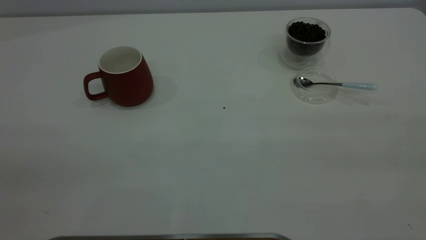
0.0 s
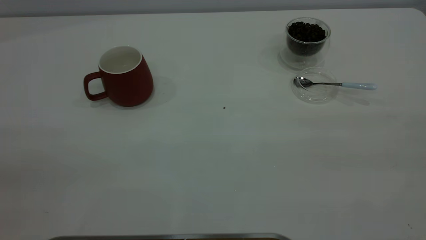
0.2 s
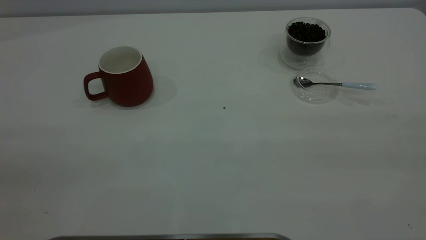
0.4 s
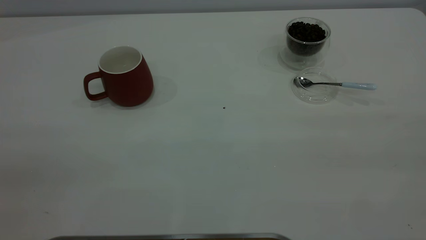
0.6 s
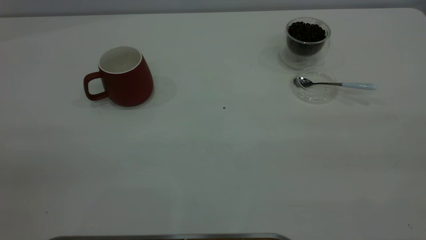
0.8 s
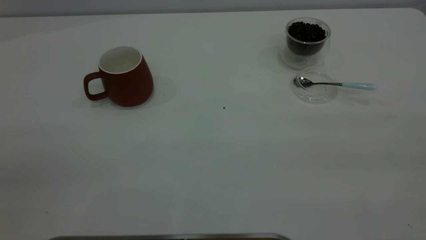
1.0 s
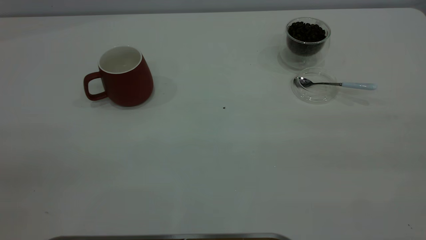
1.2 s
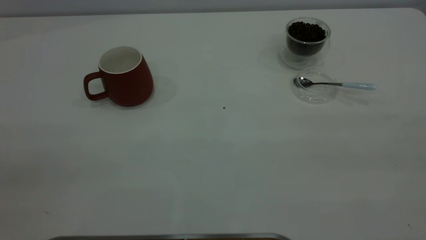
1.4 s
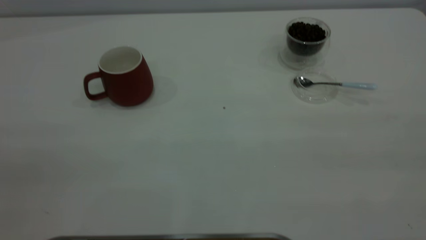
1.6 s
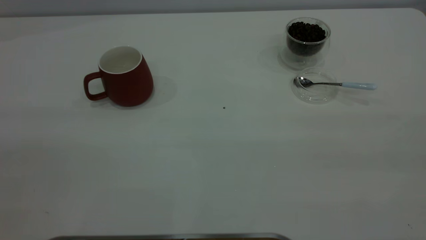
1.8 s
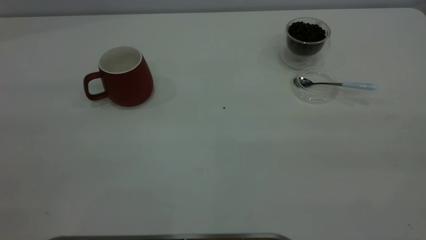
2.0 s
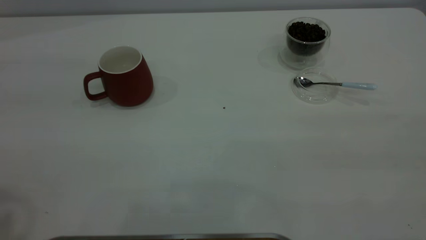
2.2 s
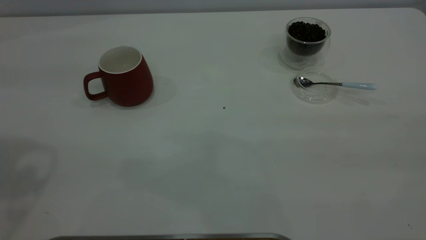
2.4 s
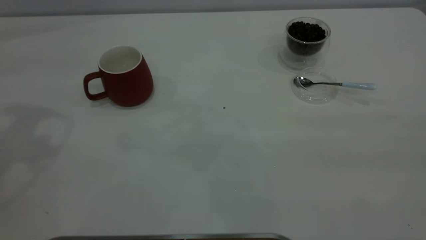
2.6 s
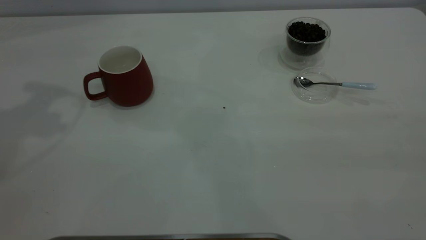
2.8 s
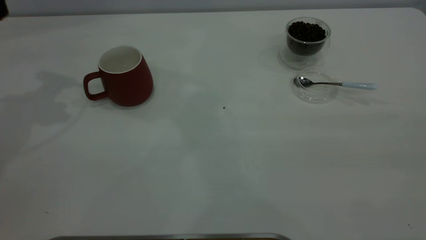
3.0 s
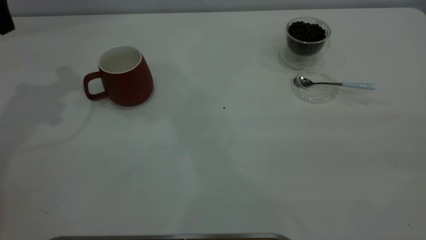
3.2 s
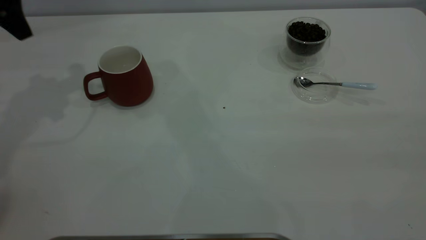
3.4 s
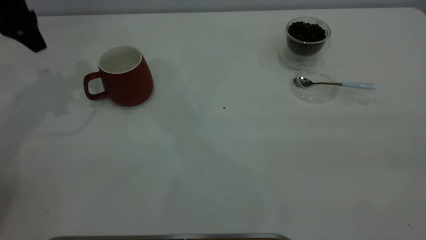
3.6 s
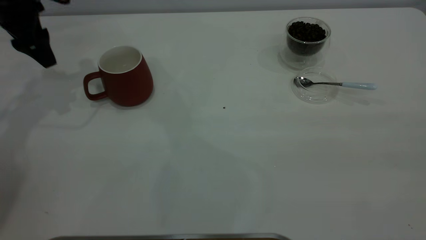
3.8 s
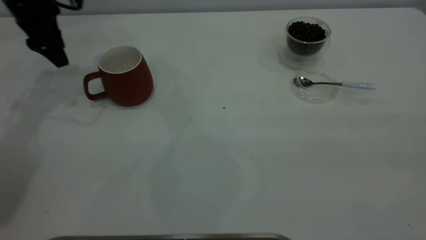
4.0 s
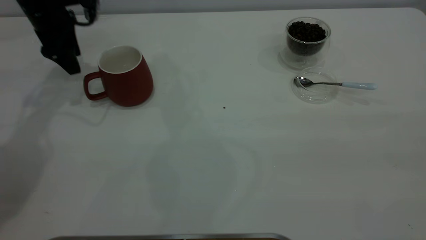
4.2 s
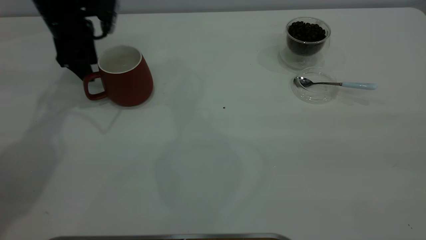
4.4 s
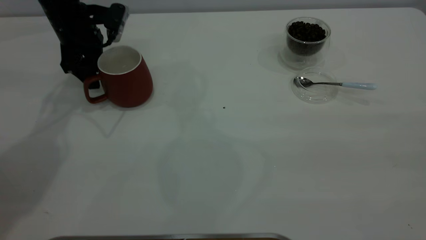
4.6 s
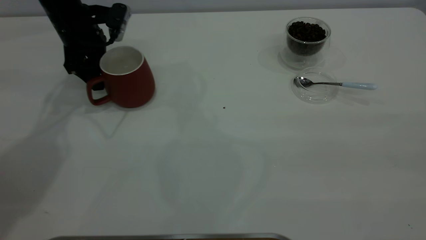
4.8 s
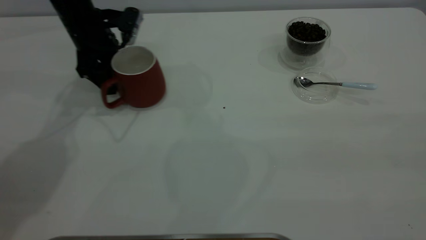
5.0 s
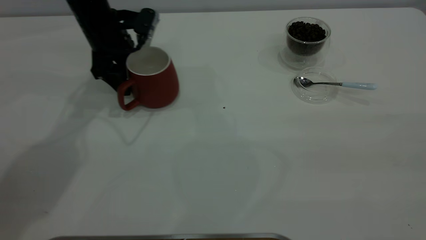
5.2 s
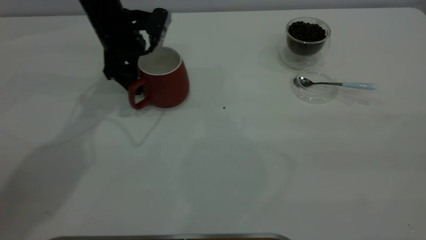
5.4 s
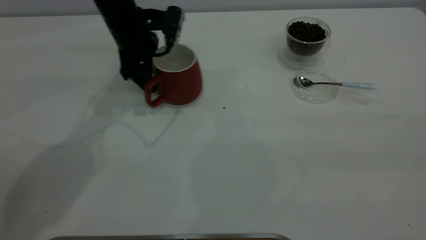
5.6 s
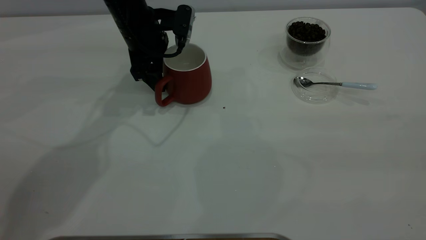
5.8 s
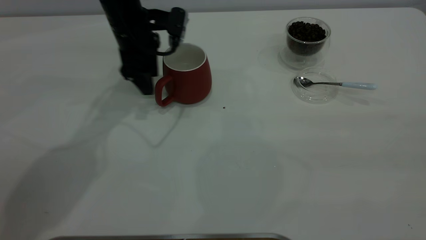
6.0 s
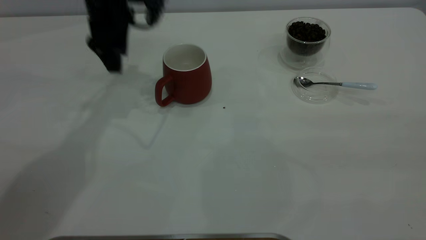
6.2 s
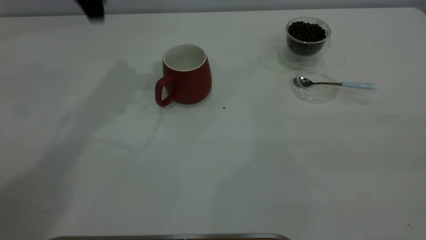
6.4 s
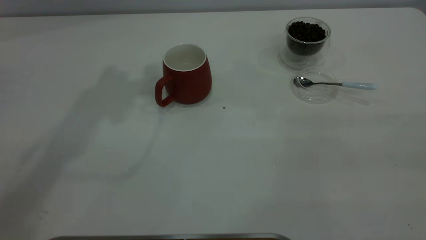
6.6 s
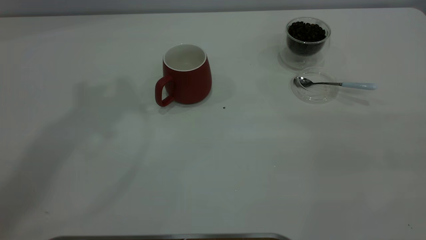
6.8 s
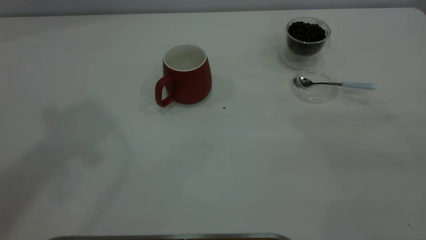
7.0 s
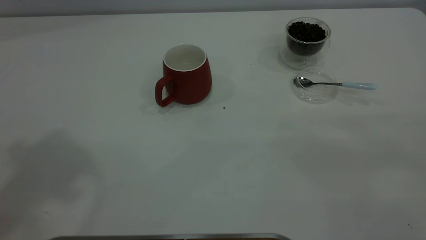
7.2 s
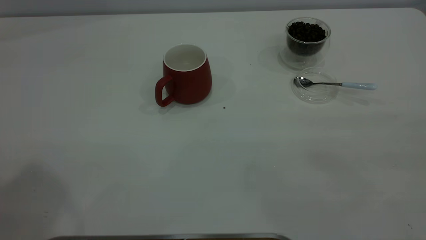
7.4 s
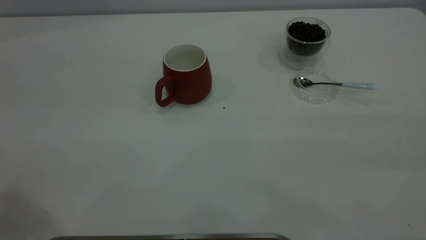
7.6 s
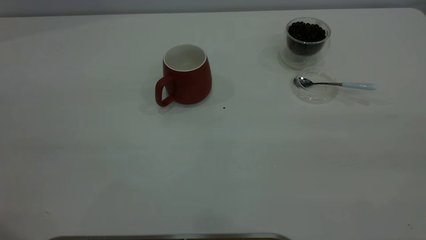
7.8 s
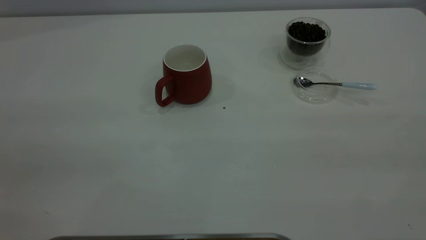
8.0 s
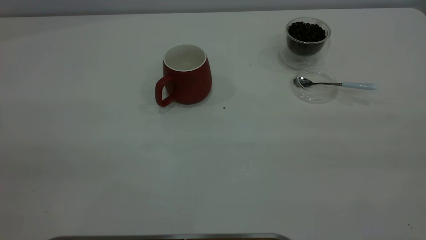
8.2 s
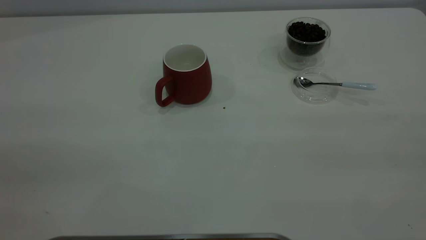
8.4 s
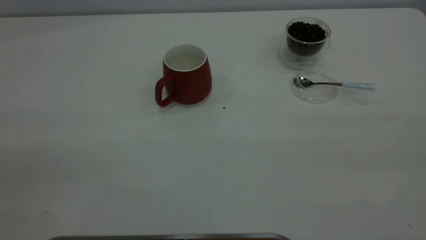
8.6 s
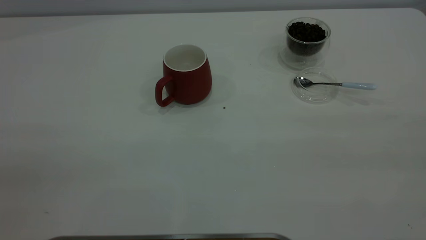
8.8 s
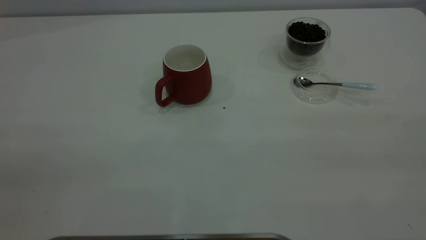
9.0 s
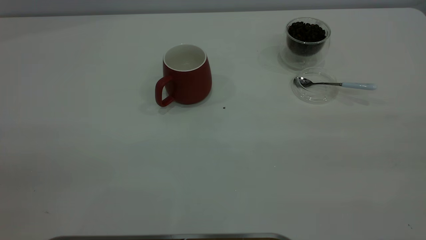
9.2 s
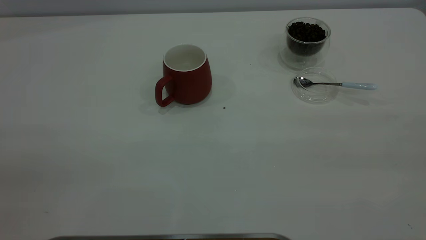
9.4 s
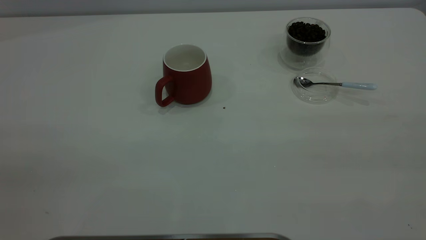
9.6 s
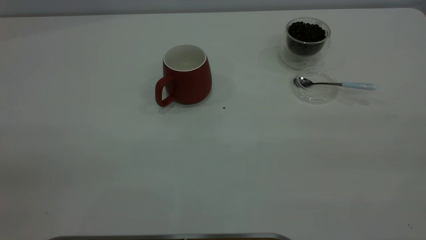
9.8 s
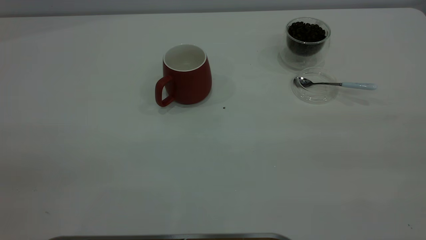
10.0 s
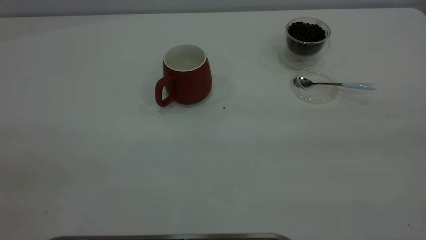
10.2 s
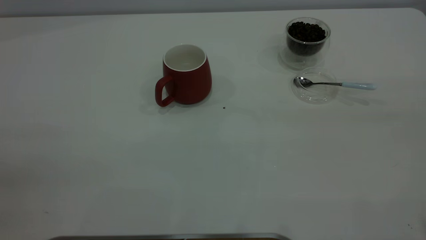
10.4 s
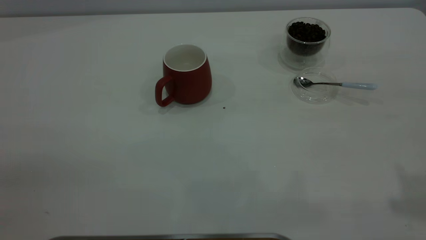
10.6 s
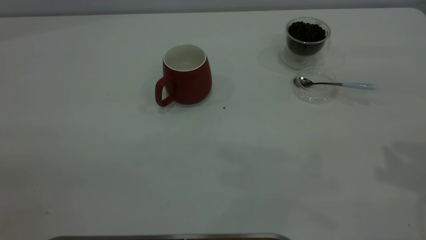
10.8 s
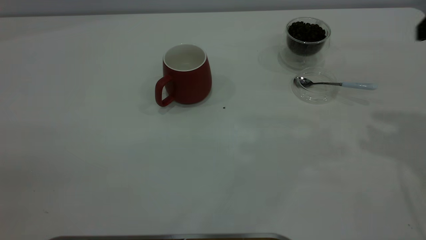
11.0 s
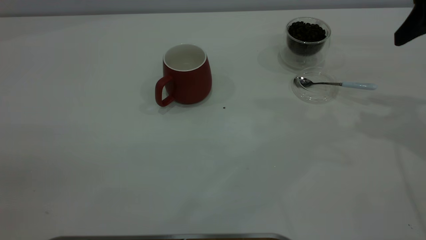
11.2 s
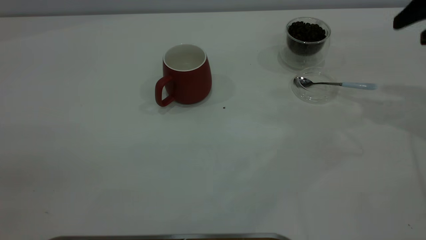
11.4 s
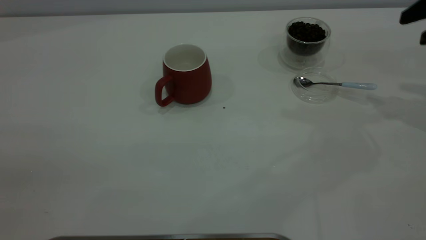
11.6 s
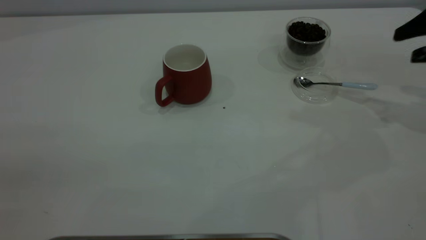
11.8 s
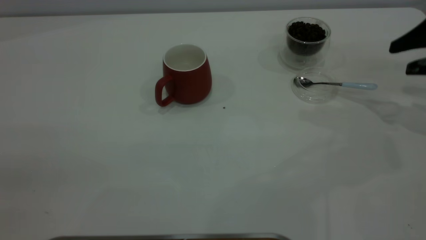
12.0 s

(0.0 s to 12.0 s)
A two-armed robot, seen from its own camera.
Task of the whole recording: the left gripper place the red cup in the center of the table, the right gripper take the blue spoon from the cup lid and scoop out the coffee beans from the coffee cup and put them into the red cup, the right gripper put the spoon back into the cup lid.
Step, 0.0 s - 6.0 s: Move the cup to the center of view.
3.0 s - 4.4 s: The left gripper travels downward, forward and to the right by roughly 20 cm.
4.4 s - 6.0 s: The left gripper shifts approximately 10 cm to the right.
6.0 s - 7.6 s: The left gripper shifts some 40 cm backward and upward.
10.4 s - 12.0 s: The right gripper goes roughly 35 cm forward and downward.

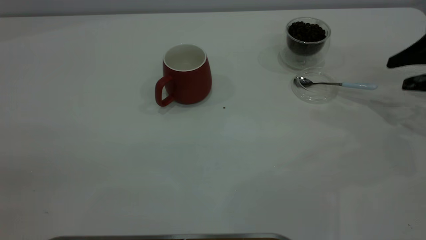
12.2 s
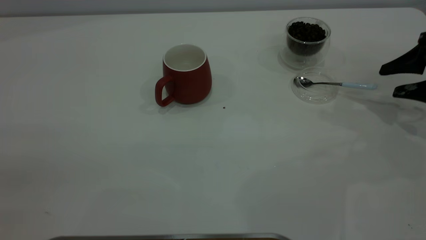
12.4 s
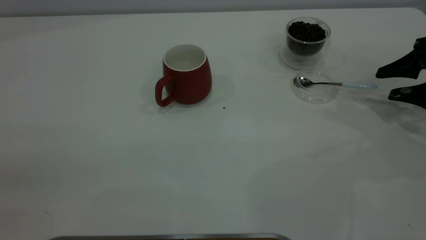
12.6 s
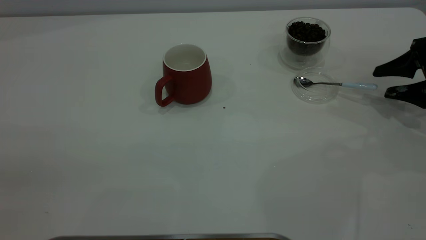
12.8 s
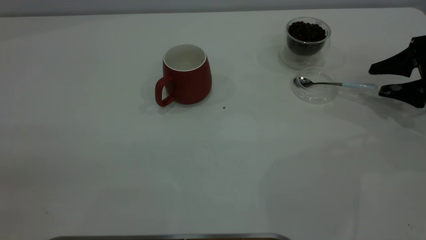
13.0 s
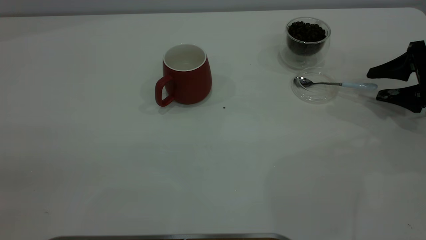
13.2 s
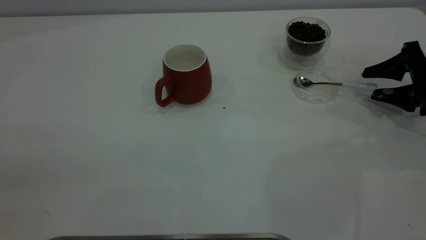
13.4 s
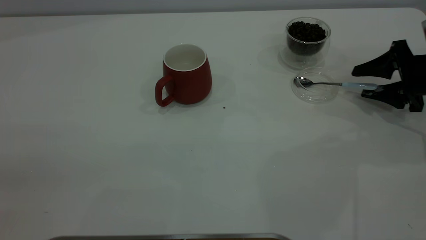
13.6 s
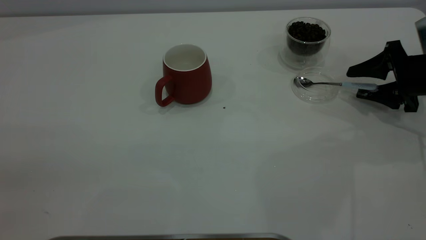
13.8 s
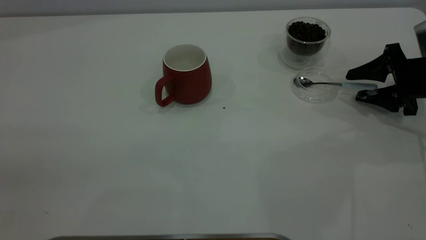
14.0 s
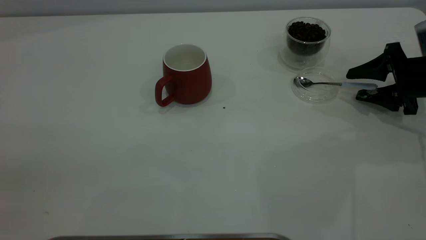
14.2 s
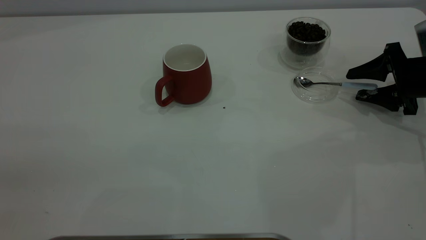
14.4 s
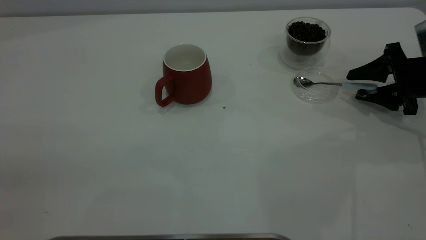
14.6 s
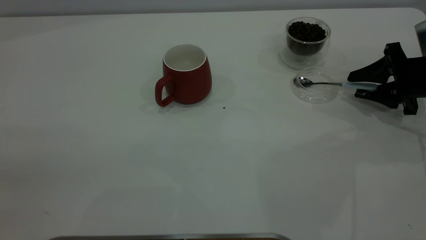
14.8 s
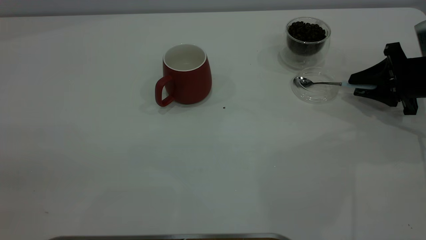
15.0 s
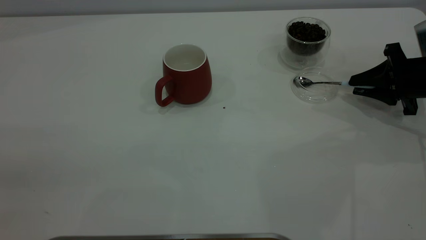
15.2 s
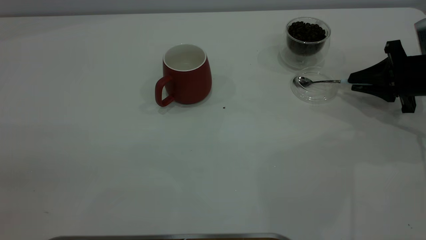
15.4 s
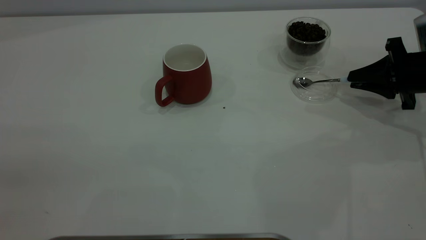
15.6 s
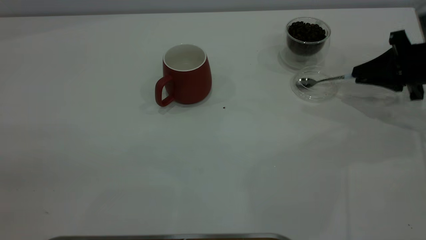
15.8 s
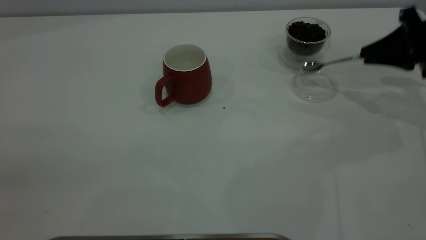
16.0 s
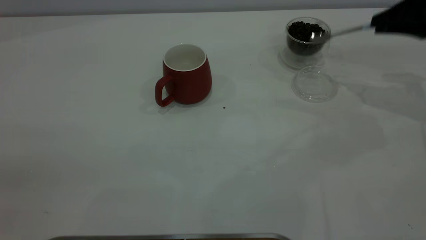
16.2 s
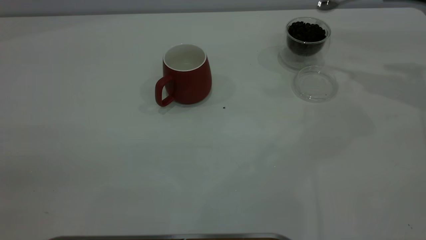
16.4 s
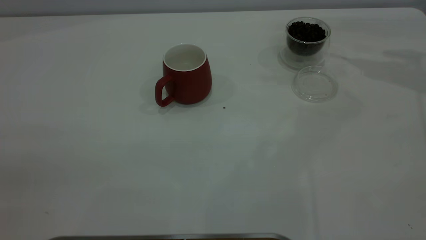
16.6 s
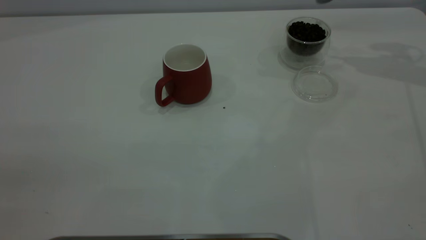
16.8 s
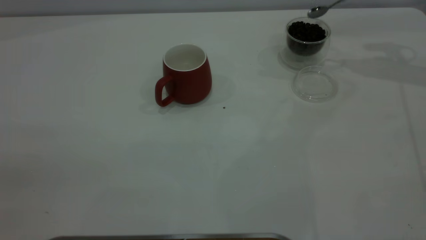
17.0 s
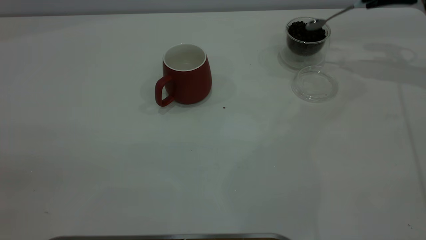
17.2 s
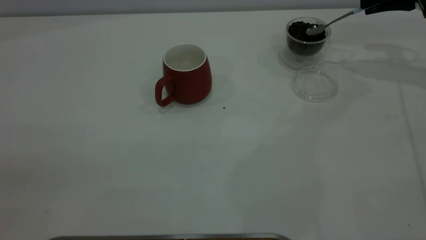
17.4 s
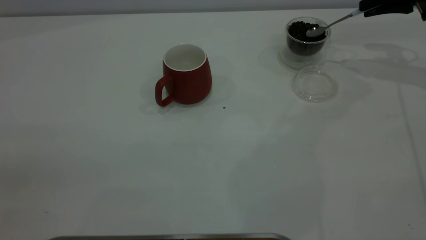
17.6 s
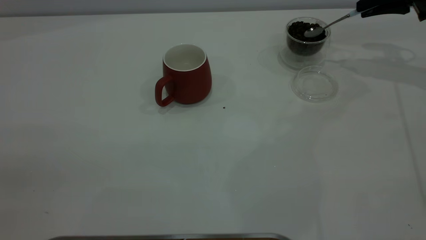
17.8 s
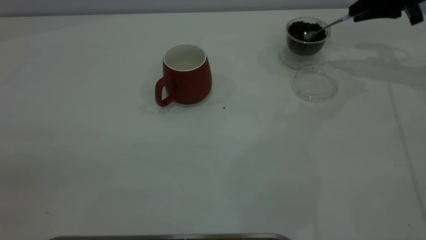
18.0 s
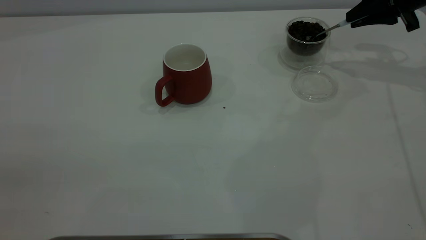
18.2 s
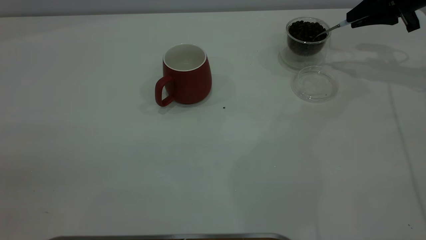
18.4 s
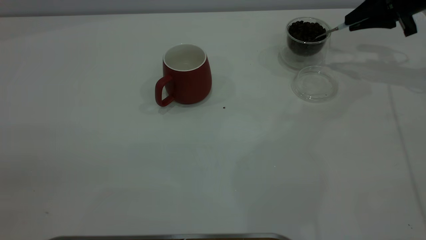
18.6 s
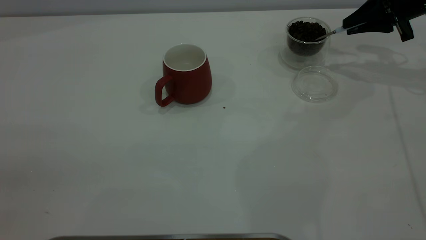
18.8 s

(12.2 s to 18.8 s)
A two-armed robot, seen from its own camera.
Task of the whole recording: the left gripper place the red cup in the center of the table, the right gripper take the blue spoon from the cup lid and scoop out the coffee beans from the coffee cup and put them into the red cup, the right gripper put the spoon back into the cup lid.
Step, 12.2 s - 16.0 s: Pick up the spoon.
12.2 s - 13.8 s: The right gripper goes roughly 5 cm downward.
13.8 s - 15.4 s: The right gripper closes its fingers.
15.4 s - 17.2 s: The right gripper heads upward and forward, covering about 20 cm.
17.2 s - 18.8 s: There are only small adjustments of the grippers.
